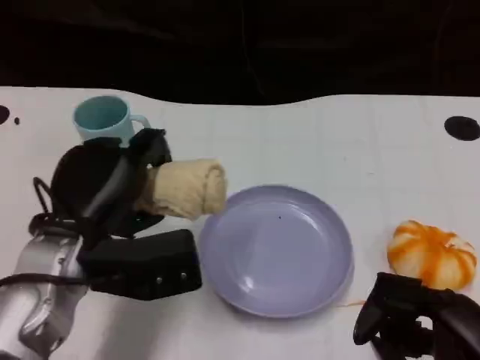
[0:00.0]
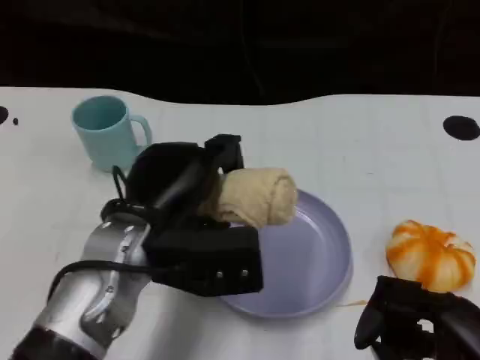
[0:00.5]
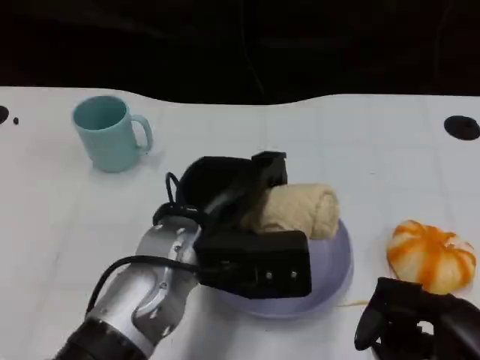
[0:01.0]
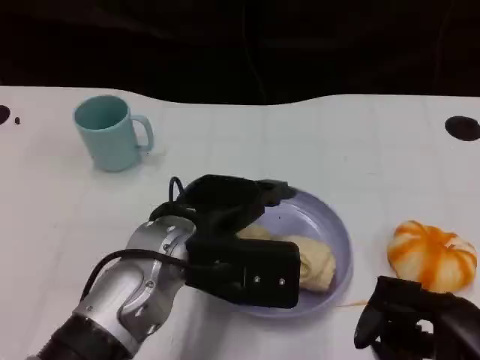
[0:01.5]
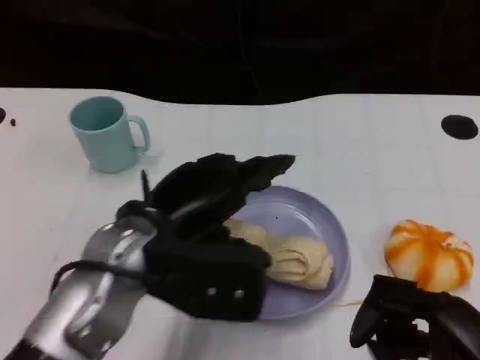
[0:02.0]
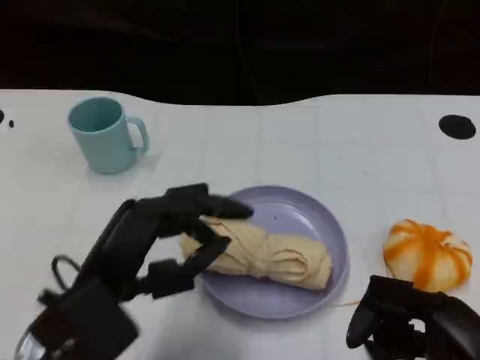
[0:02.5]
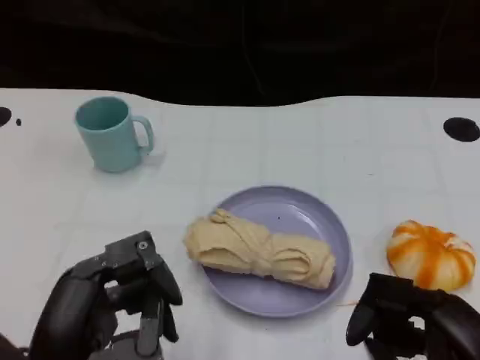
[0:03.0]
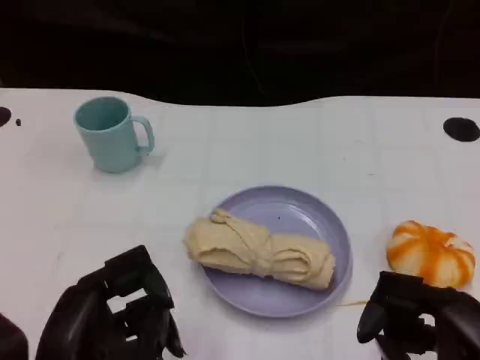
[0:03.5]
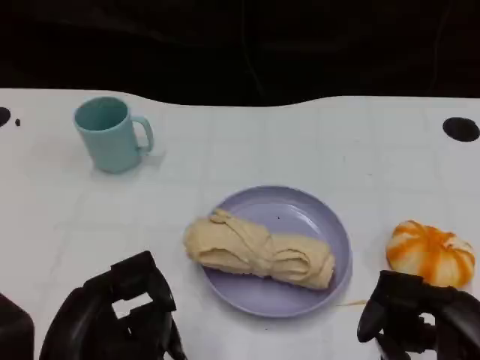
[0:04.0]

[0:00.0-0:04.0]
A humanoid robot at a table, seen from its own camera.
Task of the whole recording: Grasp the towel on the left side of the plate with the left hand and place it into the plate.
0:02.0 to 0:04.0: The left hand heads backward and to the left, covering approximately 15 cm.
